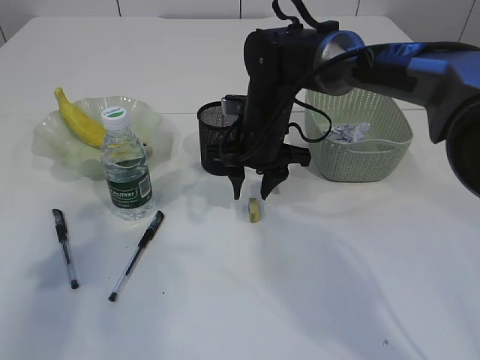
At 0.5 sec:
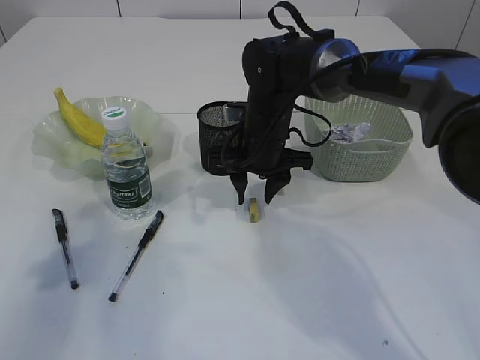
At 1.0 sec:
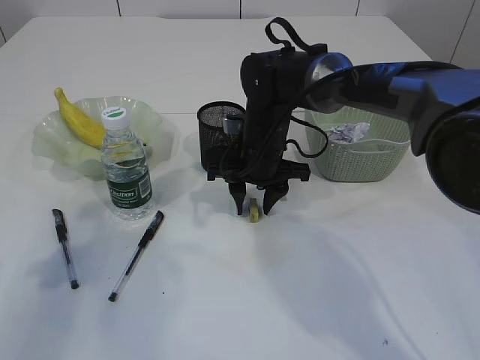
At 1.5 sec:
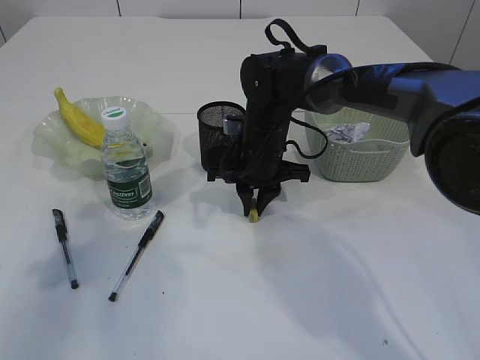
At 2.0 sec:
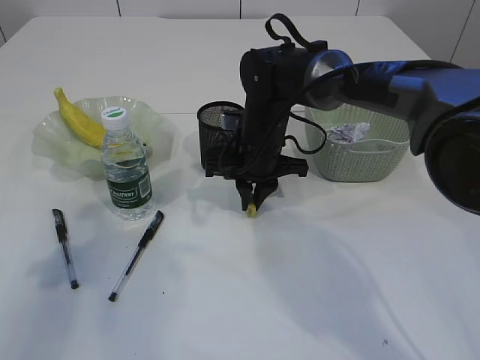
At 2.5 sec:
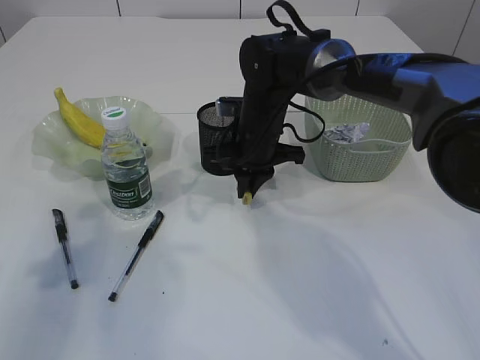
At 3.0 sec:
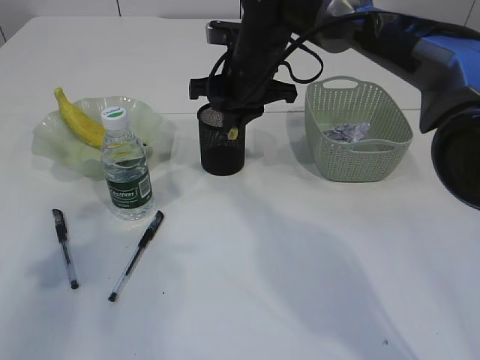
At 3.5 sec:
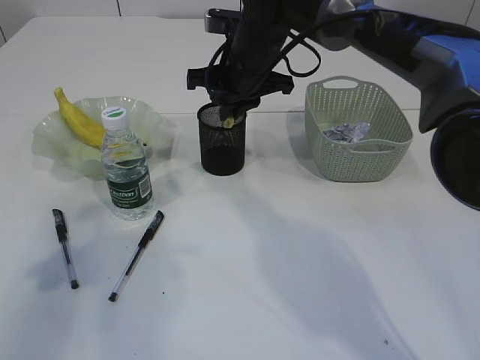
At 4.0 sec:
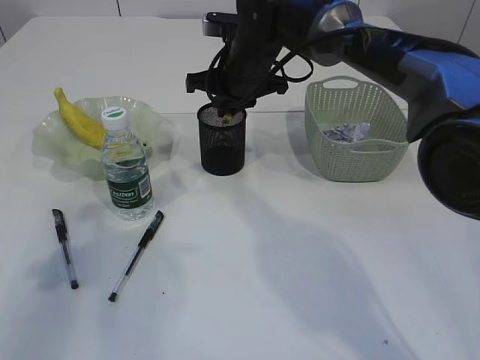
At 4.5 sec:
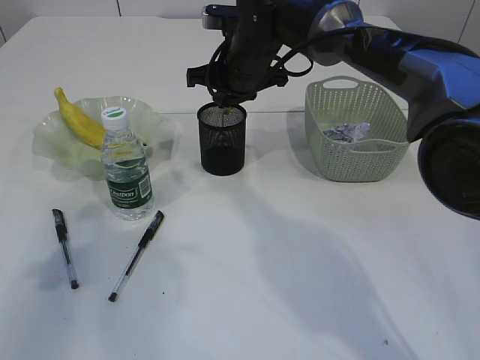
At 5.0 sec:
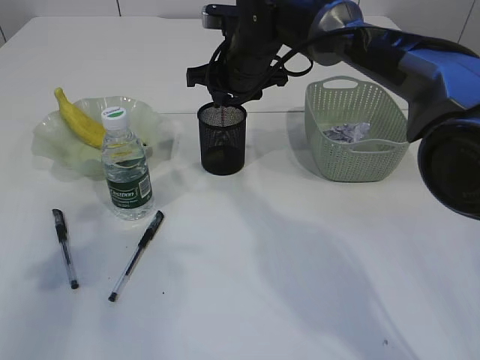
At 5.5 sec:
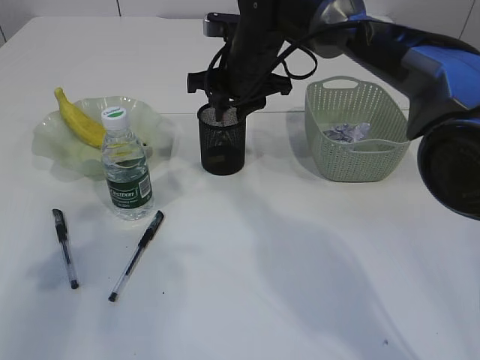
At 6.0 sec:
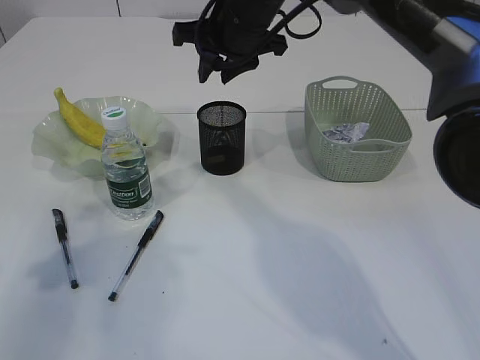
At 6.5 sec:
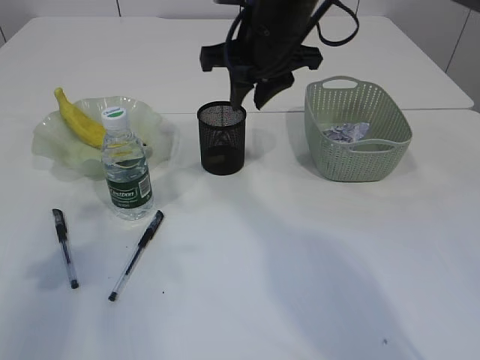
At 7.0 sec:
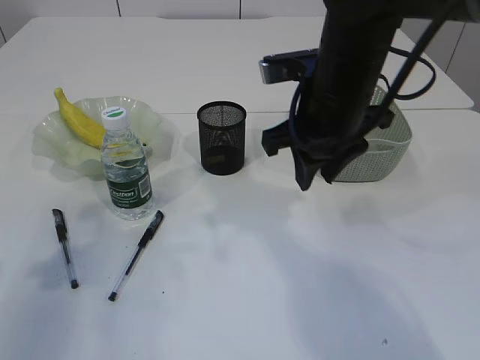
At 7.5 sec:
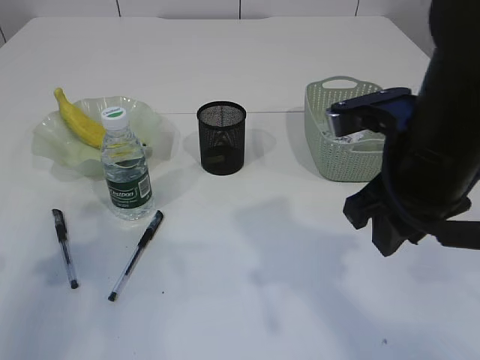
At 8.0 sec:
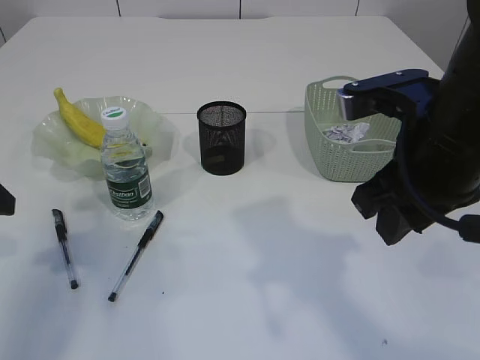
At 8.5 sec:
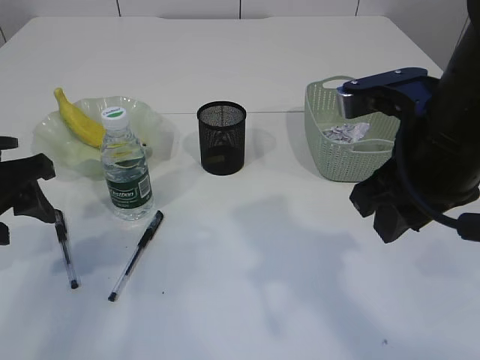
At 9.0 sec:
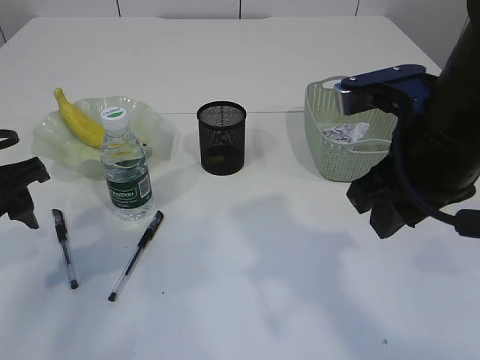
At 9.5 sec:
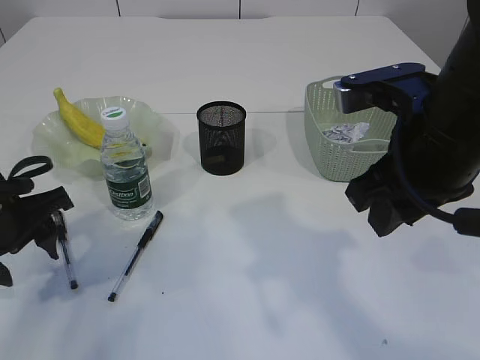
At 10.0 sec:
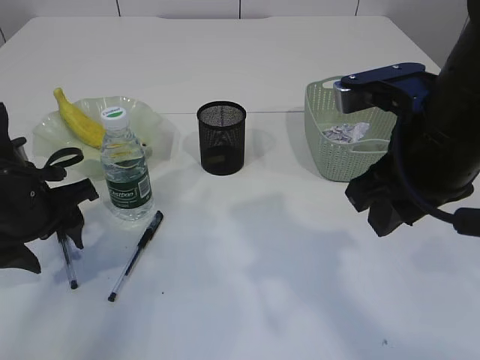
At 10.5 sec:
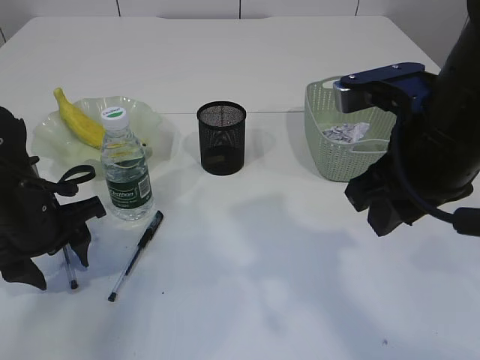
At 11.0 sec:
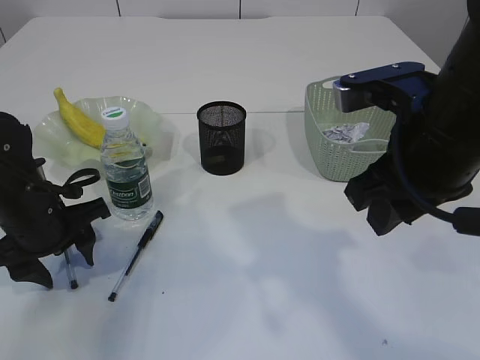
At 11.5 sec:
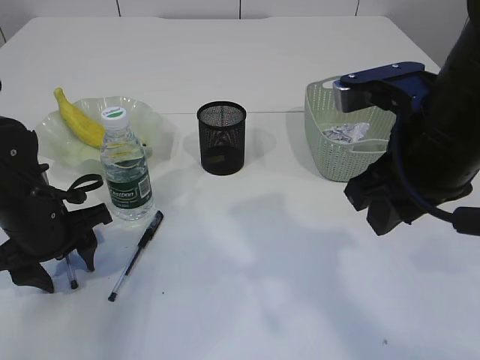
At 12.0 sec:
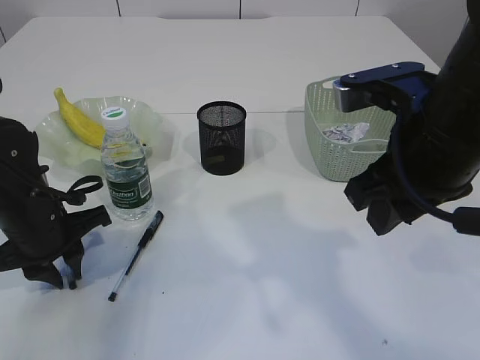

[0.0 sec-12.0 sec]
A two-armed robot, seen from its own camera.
Step, 0.0 sec to 2.5 sec: Pick up the eraser.
Step, 3.0 sec to 5.5 sec: Place the eraser into the pen holder.
0.0 sec to 2.0 sec: The right gripper closes up.
2.0 sec to 4.0 sec: The right gripper heads upward, covering roughly 10 cm.
4.0 sec to 6.0 sec: The right gripper travels upward by about 5 cm, and opens its fingers.
6.0 sec to 8.0 sec: The right gripper moves backward and to the right, approximately 25 cm.
8.0 sec to 10.0 sec: The left gripper moves downward and to the right, about 10 cm.
10.0 sec to 12.0 sec: The left gripper closes up.

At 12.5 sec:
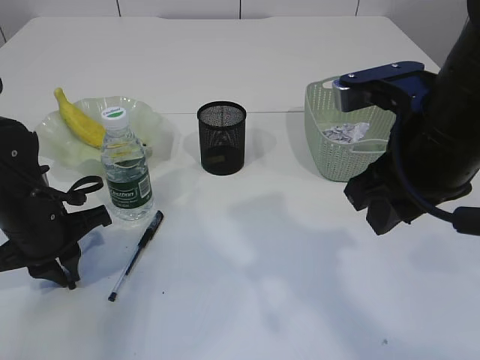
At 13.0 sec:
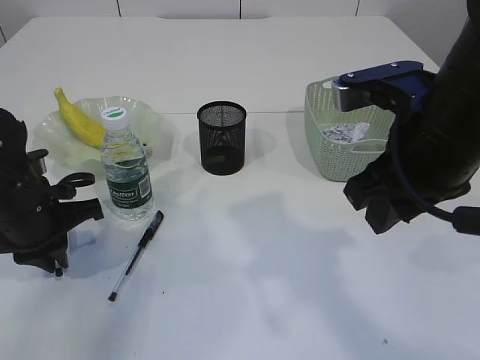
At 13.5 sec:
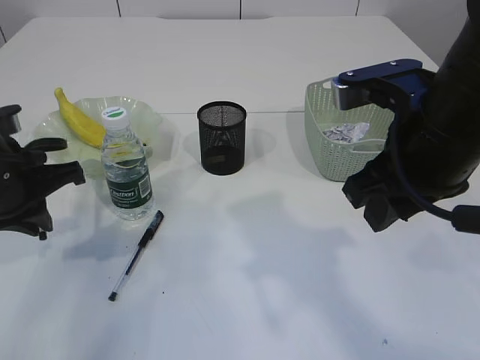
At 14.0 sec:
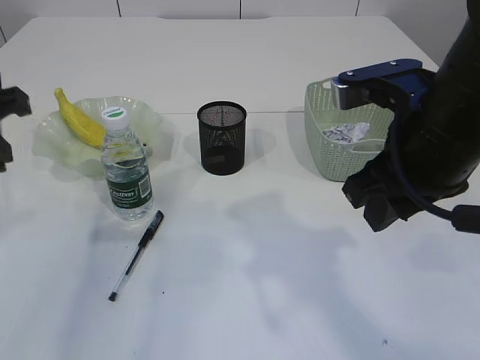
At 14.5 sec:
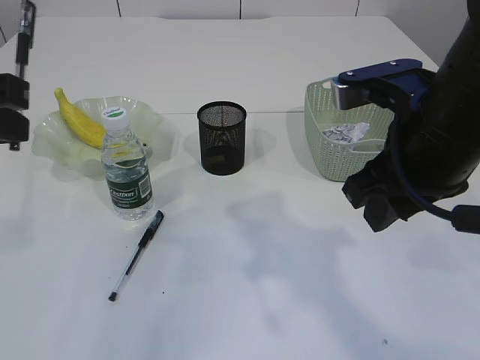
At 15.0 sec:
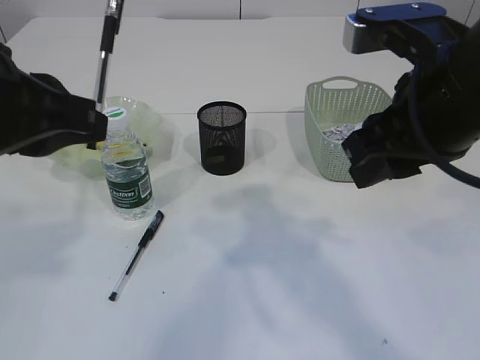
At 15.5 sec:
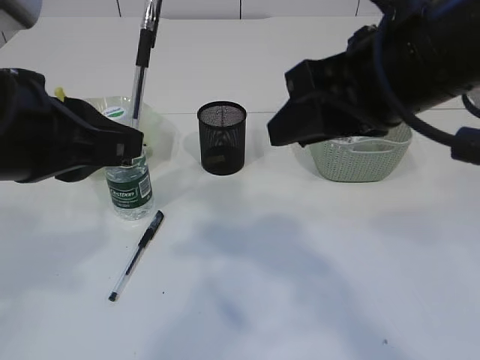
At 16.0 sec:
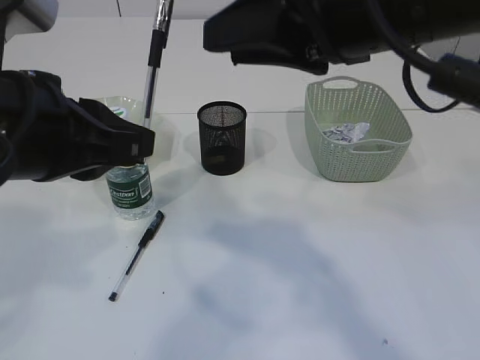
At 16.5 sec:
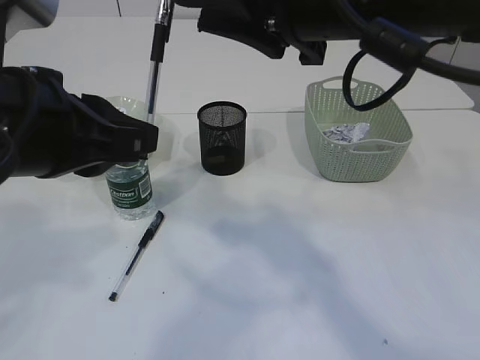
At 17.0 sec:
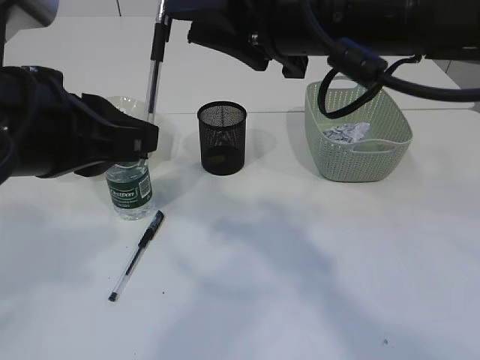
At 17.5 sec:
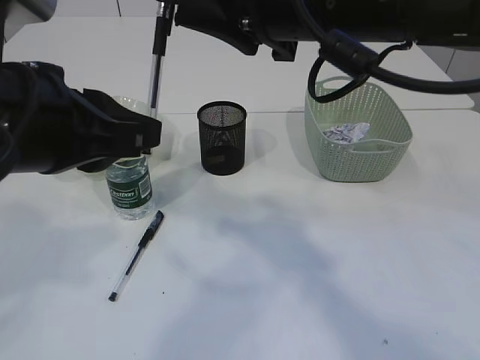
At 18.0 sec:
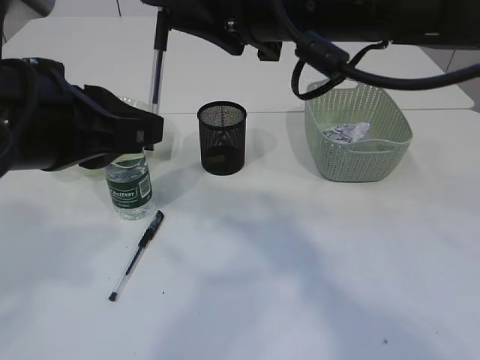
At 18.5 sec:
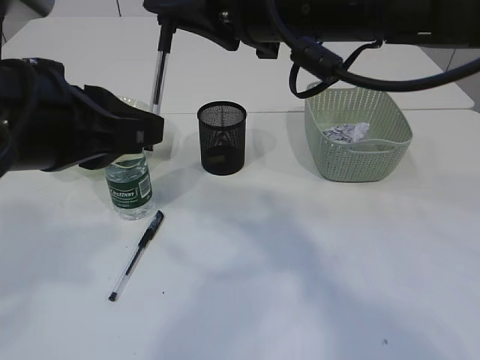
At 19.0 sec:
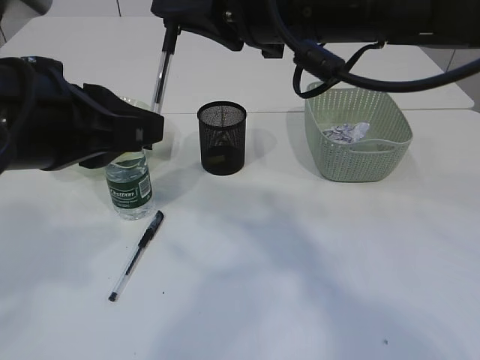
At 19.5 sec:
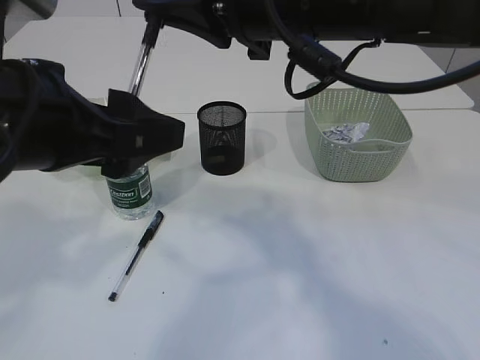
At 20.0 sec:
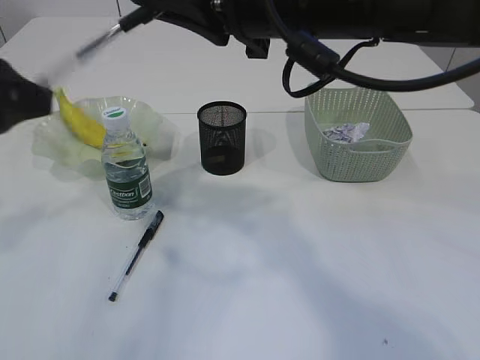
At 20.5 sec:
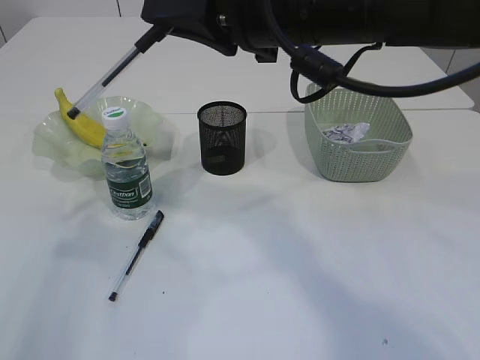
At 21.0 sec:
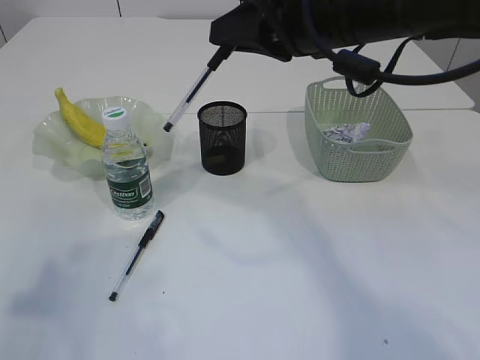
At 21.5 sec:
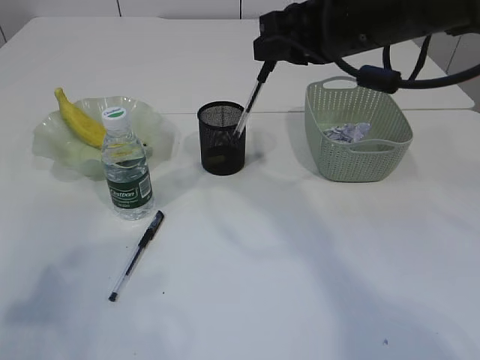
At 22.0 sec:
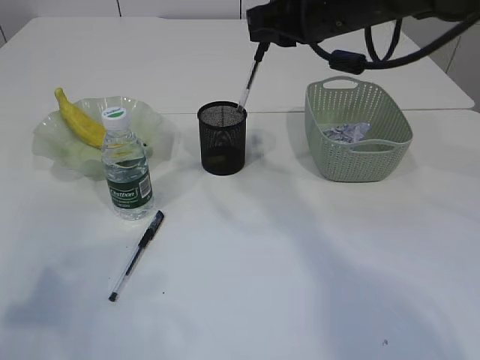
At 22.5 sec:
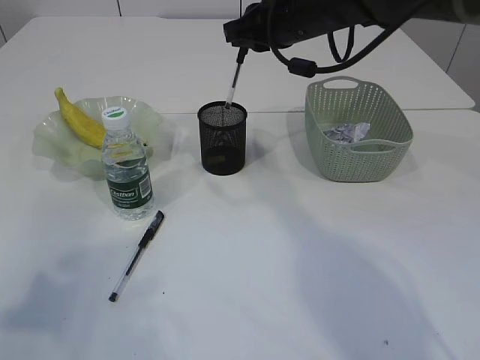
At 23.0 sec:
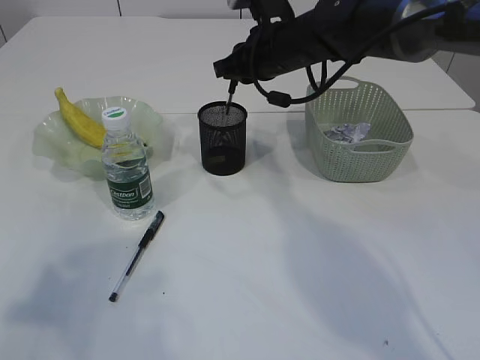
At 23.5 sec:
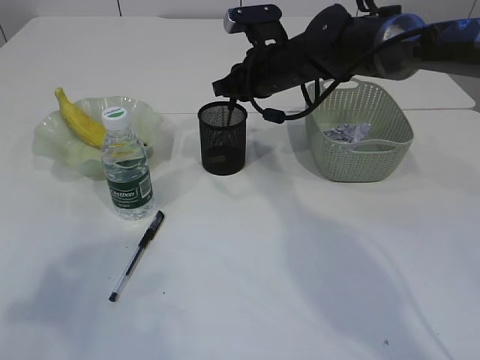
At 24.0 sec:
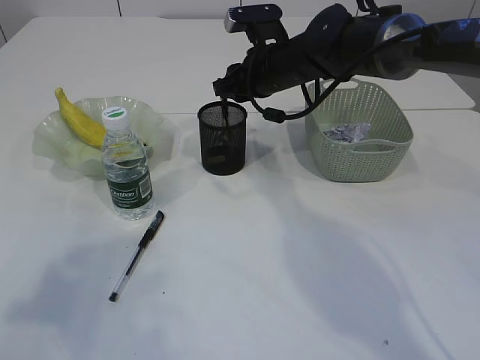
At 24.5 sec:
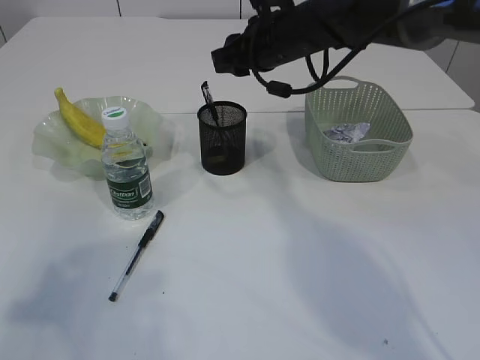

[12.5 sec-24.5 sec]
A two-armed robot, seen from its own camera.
Step, 14.0 sec to 20.0 sec: transfer the pen to the right arm.
Step, 20.5 sec to 24.0 sec: Place the pen into the pen holder.
12.5 sec to 14.5 sec: The left gripper is displaced upward and backward by about 20 cm.
14.5 sec to 16.5 sec: The right gripper travels upward and to the left by roughly 10 cm, while the left gripper is displaced to the right by about 10 cm.
16.5 sec to 18.5 sec: The grippers move only a little.
18.5 sec to 20.5 sec: The left gripper shifts about 15 cm to the left, and opens up.
20.5 sec to 22.5 sec: The left gripper heads backward, covering some 5 cm. The right gripper heads forward, covering approximately 15 cm.
22.5 sec to 24.5 sec: The right gripper opens up.

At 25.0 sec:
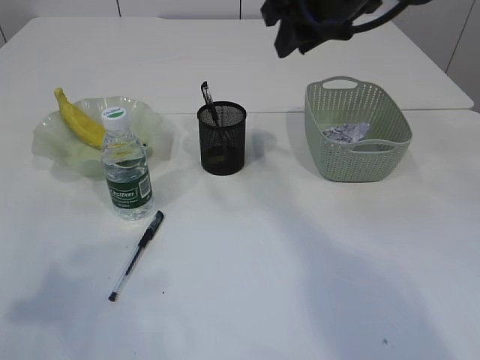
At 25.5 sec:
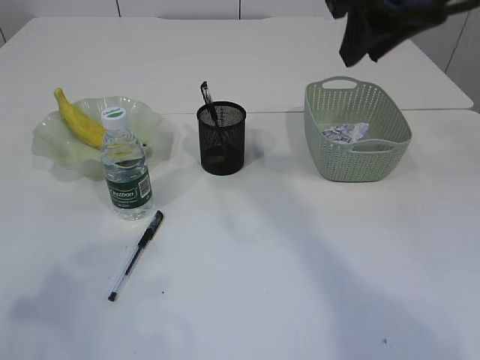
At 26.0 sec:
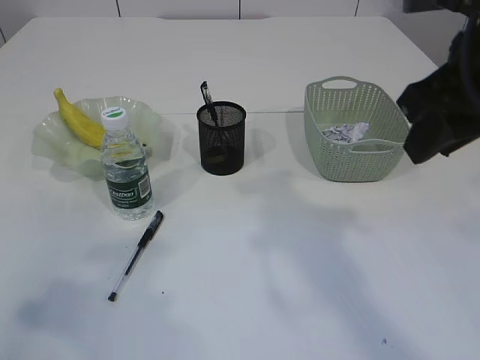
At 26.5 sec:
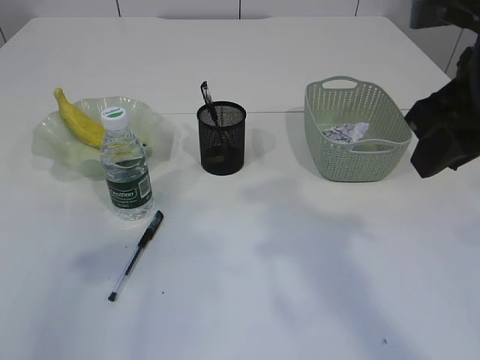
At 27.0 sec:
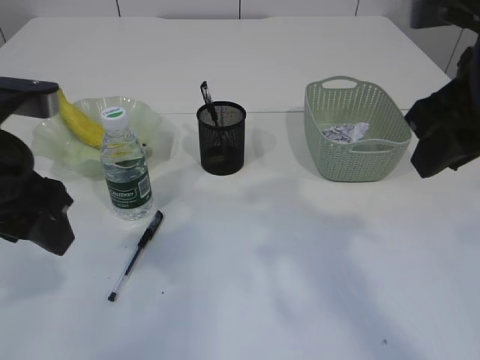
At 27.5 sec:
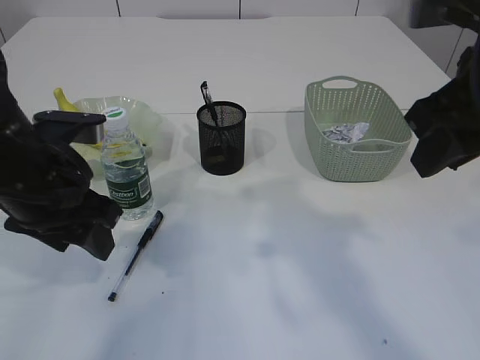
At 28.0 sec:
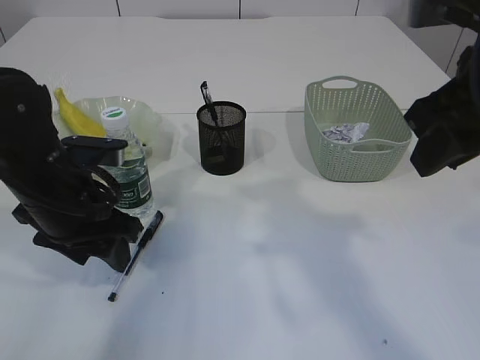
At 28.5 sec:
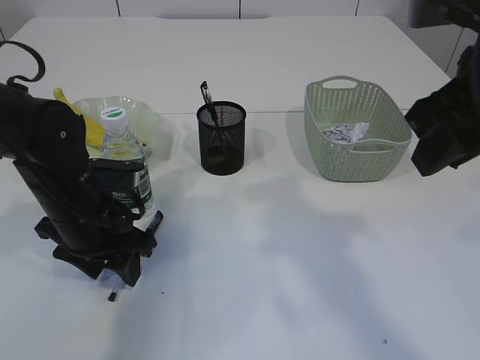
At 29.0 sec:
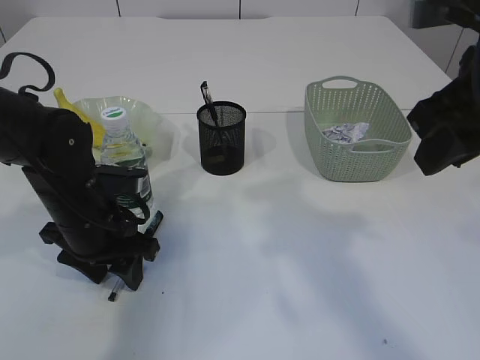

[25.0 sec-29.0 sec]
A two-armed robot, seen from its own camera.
25.0 sec to 27.0 sec: The left gripper shifts approximately 15 cm forward and to the right, while the right gripper is displaced backward and to the right by some 20 cm.
27.0 sec to 29.0 sec: The left gripper goes roughly 15 cm downward and forward.
